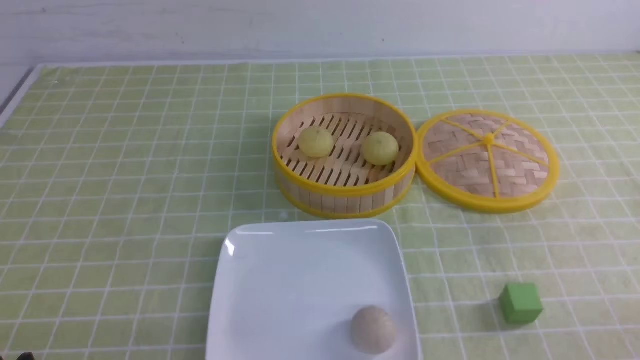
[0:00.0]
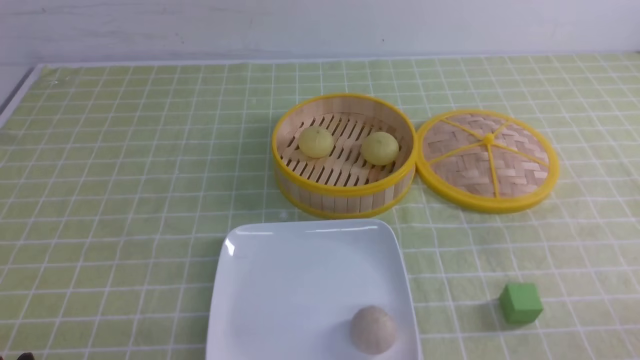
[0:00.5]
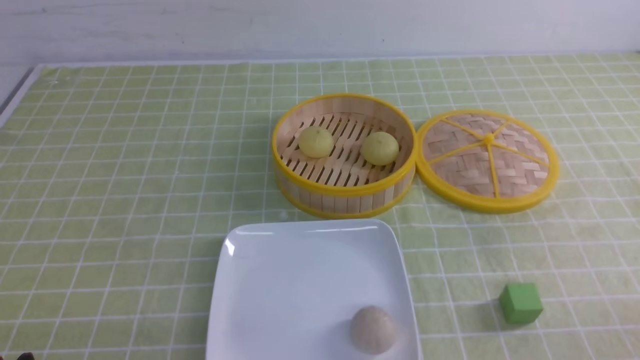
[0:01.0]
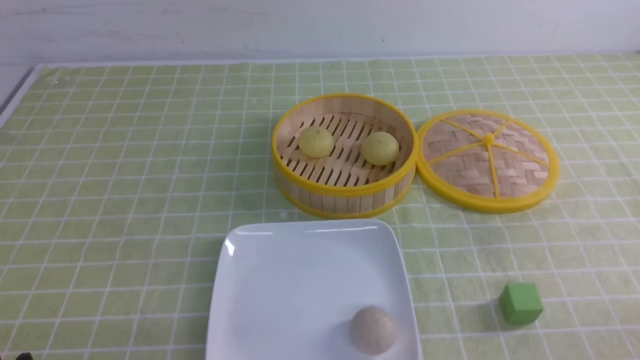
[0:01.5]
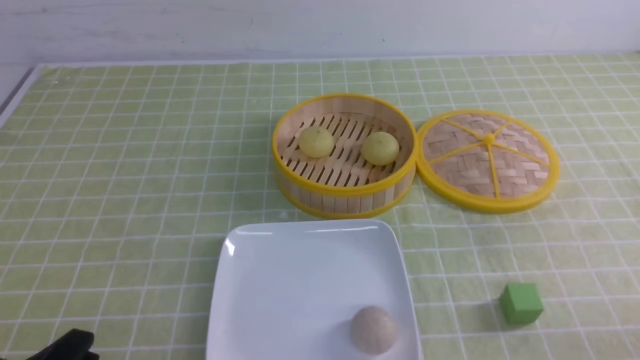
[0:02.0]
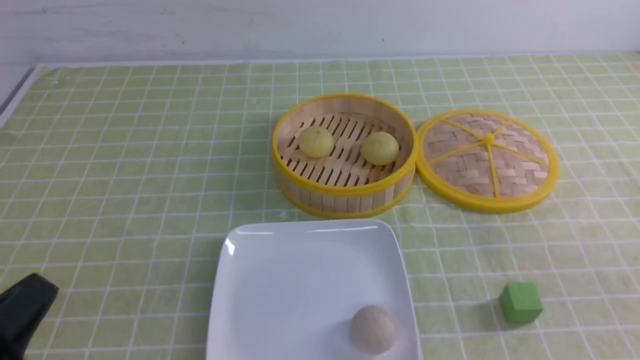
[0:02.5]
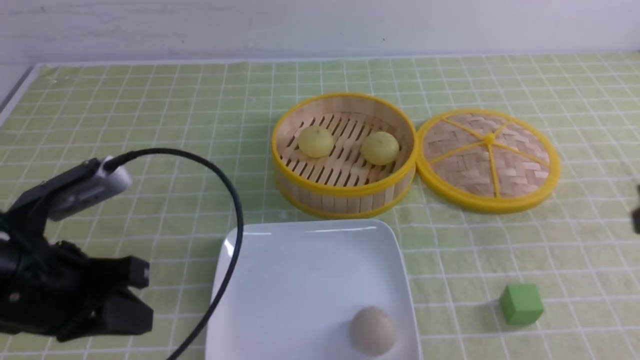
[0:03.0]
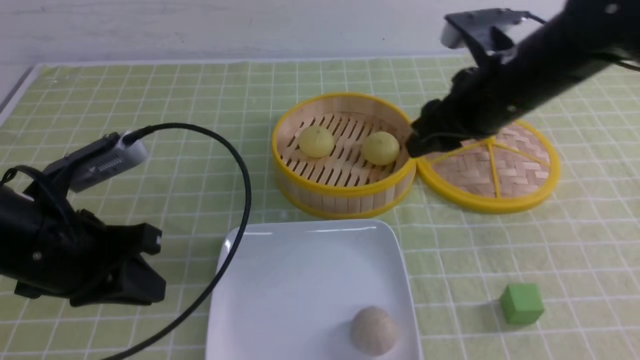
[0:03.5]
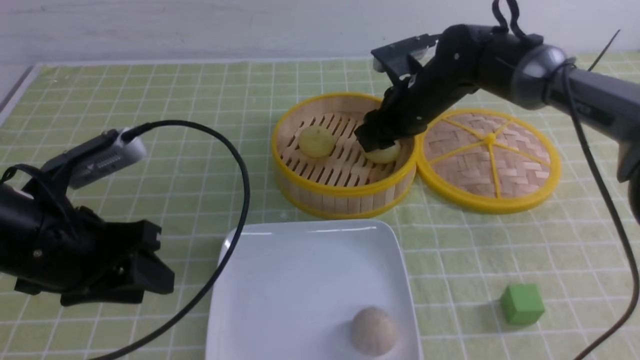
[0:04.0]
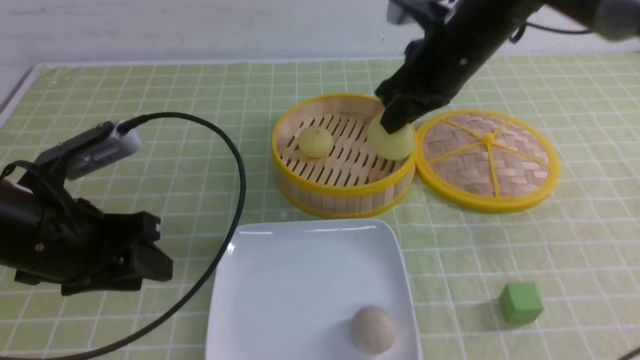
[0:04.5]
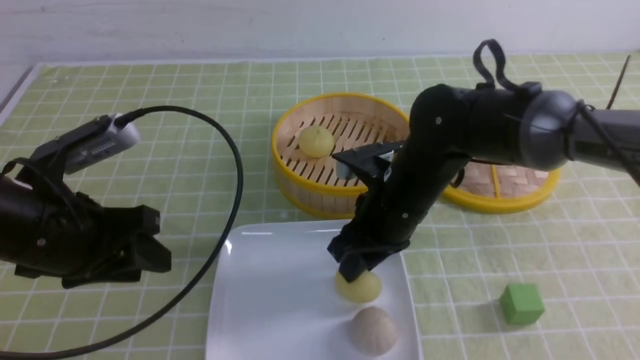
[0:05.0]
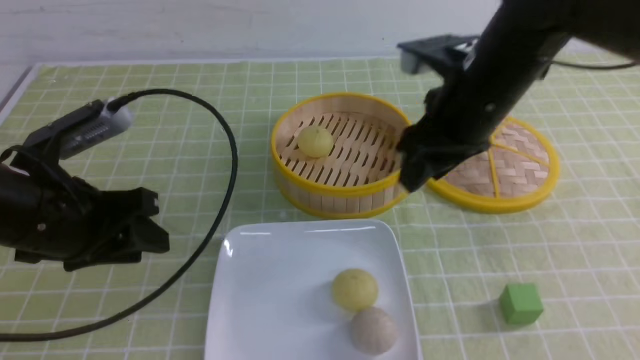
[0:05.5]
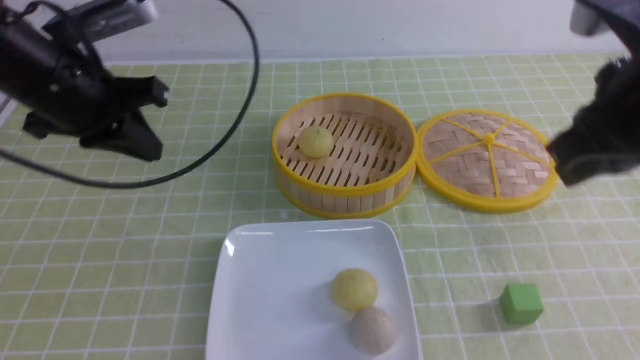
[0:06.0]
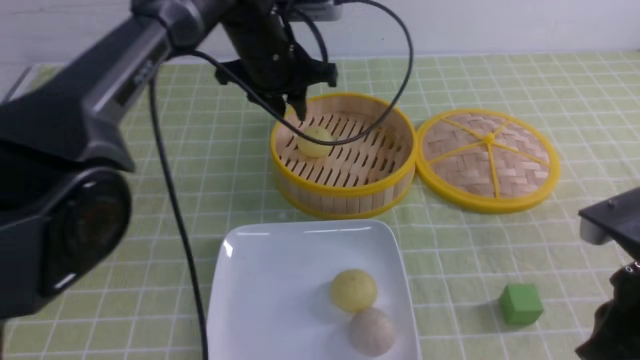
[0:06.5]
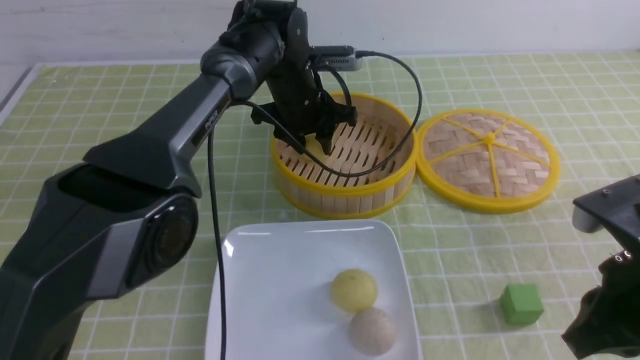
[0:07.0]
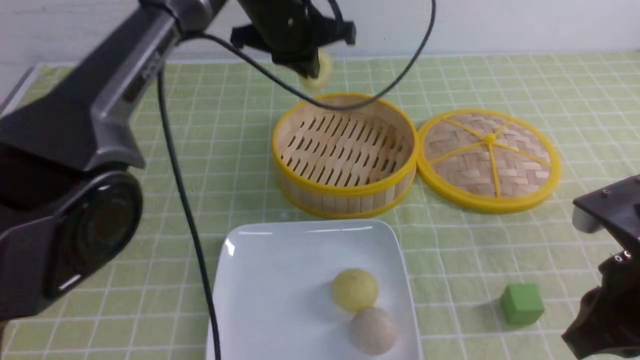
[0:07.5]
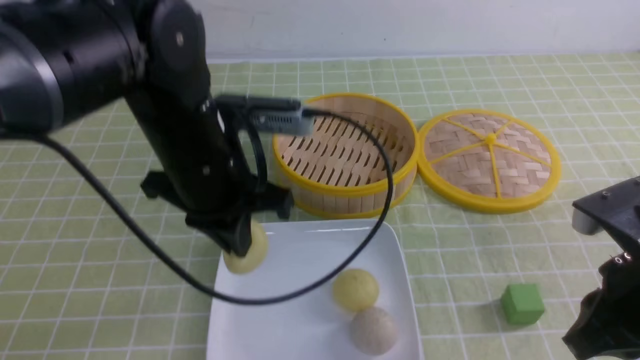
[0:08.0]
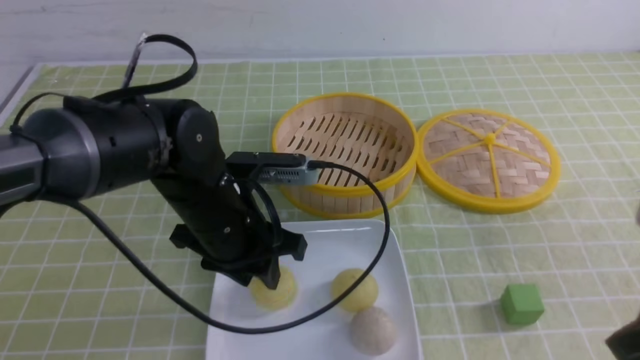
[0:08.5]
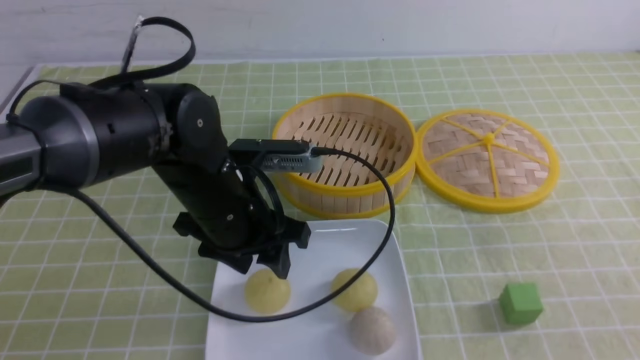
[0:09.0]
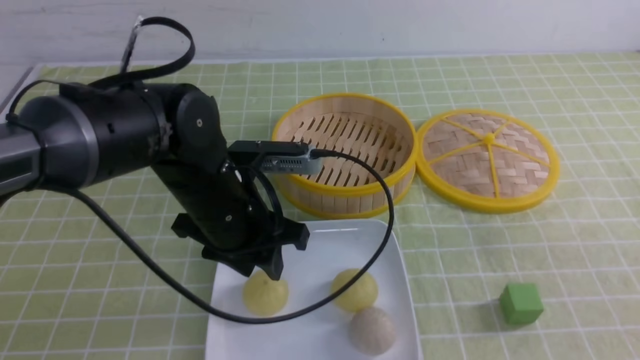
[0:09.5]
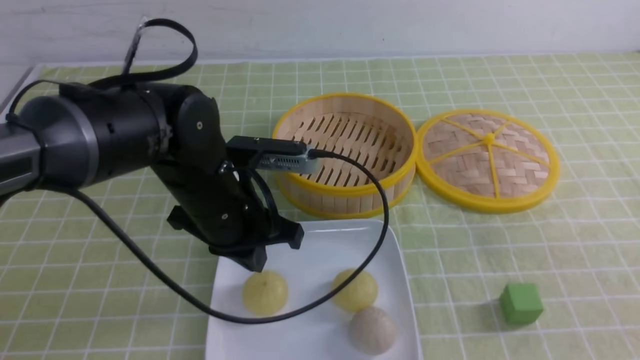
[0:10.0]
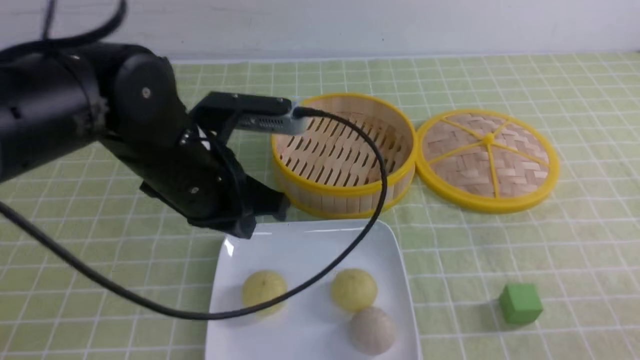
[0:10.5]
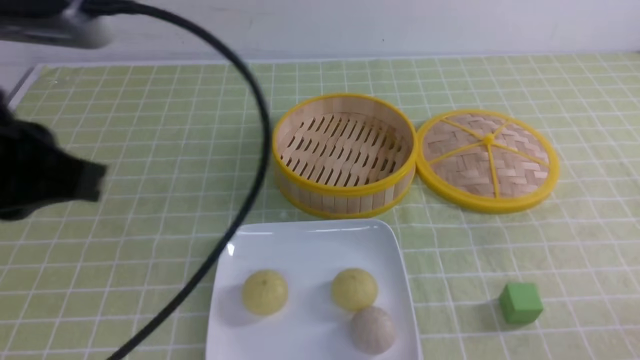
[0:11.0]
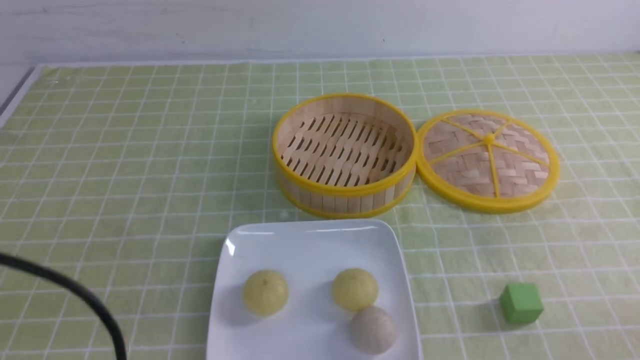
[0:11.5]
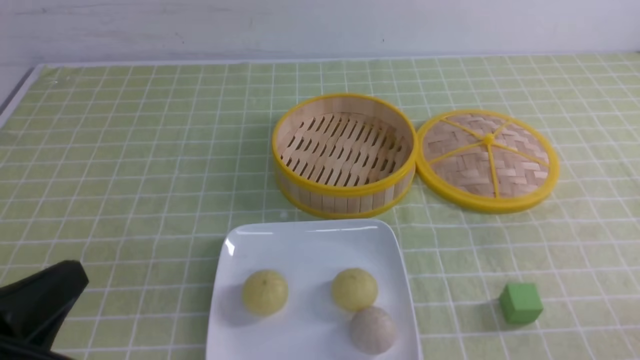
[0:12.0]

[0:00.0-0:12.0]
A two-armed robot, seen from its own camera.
Step, 0:00.0 to 0:04.0: use the right arm to grab the steamed stuffed bun that is closest to it.
Step, 0:04.5 to 0:05.0: use the right arm to put the steamed stuffed bun into the plate.
Step, 0:05.5 to 0:07.0: use the left arm to grab the steamed stuffed bun that is closest to it.
Step, 0:07.5 to 0:08.5: use the left arm to put the steamed stuffed bun into the plate.
0:02.0 to 0:04.0: The left gripper goes some 20 cm forward and upward, and closes, then opens again. Meanwhile the right gripper is displaced forward and to the left by about 50 cm, and closes, then reopens.
0:04.0 to 0:06.0: The left gripper is displaced forward and upward by roughly 15 cm, and closes its fingers. Meanwhile the right gripper goes about 30 cm backward, upward and to the right, and closes.
0:06.0 to 0:08.0: The right gripper moves downward and backward, some 10 cm; the left gripper is displaced to the right and downward by some 10 cm, moves roughly 15 cm forward and comes back, and opens, then closes once more.
0:08.0 to 0:10.0: The right gripper travels backward and to the right by roughly 15 cm; the left gripper moves downward, about 5 cm, and opens and closes again.
0:10.0 to 0:12.0: The right gripper shifts some 10 cm downward, while the left gripper moves backward and to the left, about 25 cm.

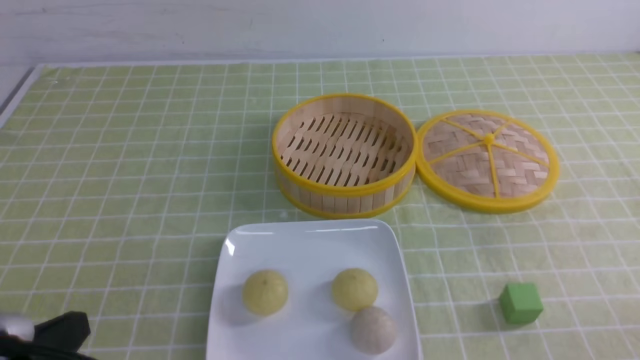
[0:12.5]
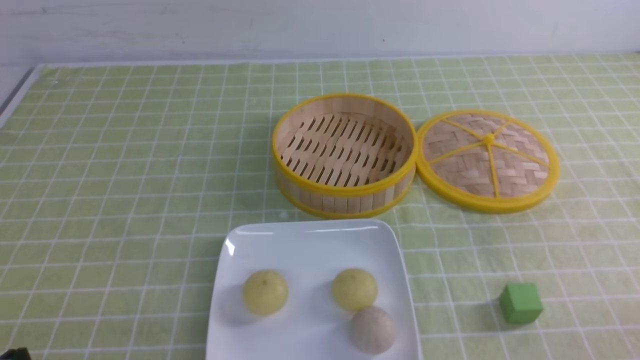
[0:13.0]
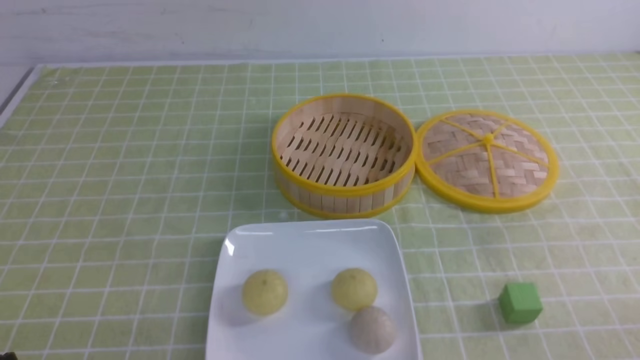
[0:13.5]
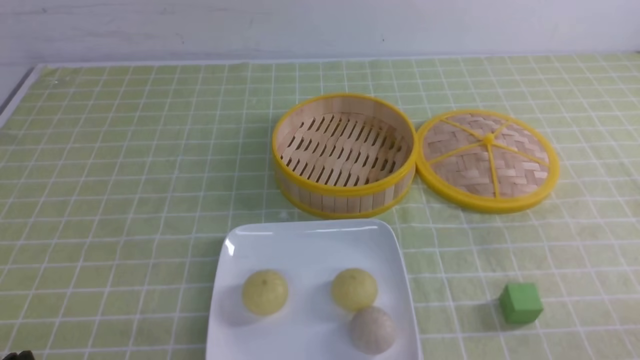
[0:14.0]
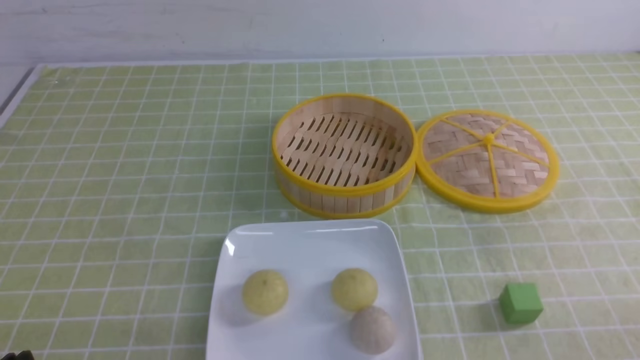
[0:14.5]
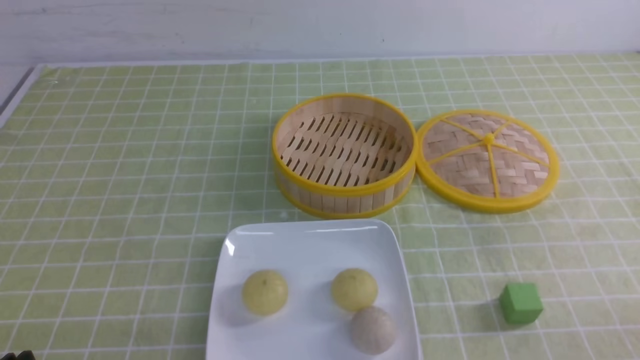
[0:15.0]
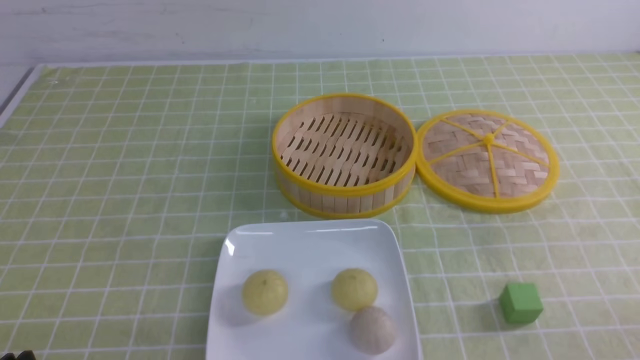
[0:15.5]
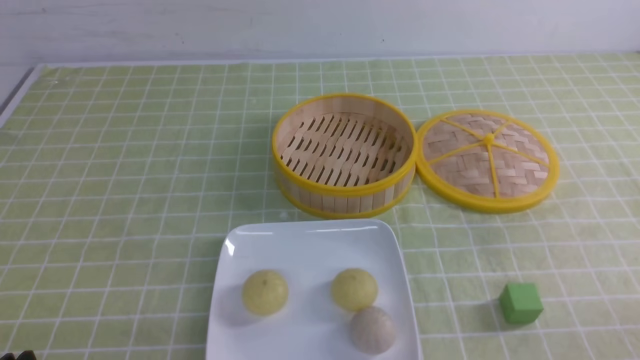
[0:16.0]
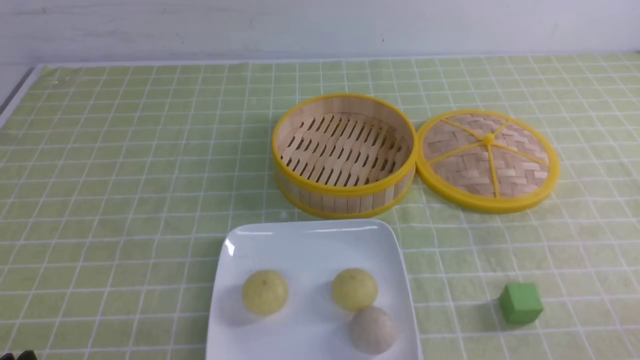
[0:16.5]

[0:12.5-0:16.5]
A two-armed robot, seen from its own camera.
0:12.5 to 0:14.5: The left gripper goes approximately 5 cm downward.
0:14.5 to 0:16.5: Both grippers stay about where they are.

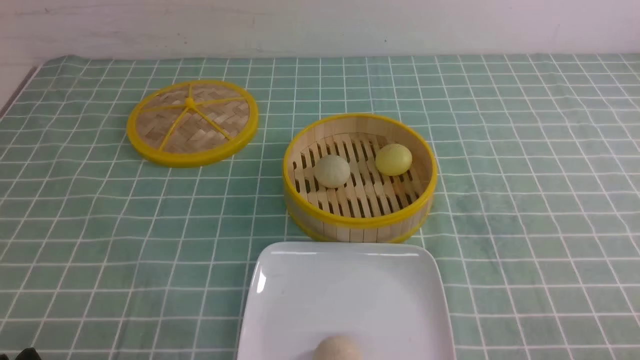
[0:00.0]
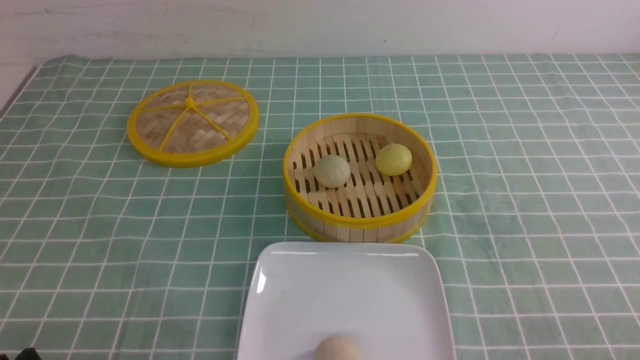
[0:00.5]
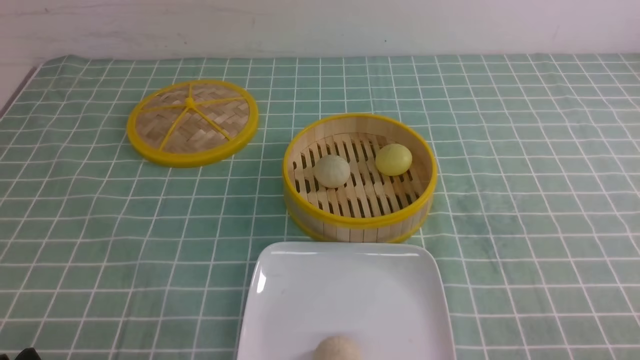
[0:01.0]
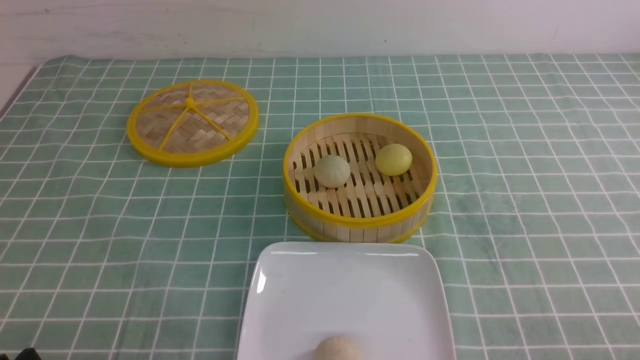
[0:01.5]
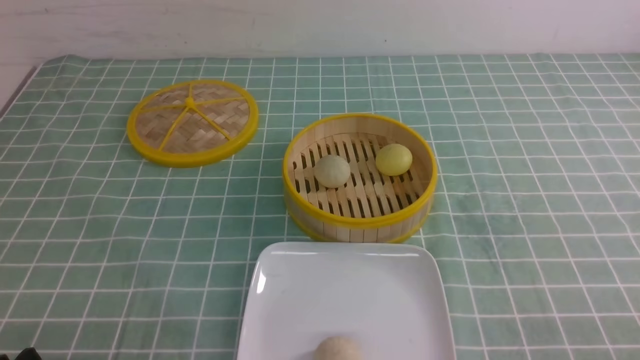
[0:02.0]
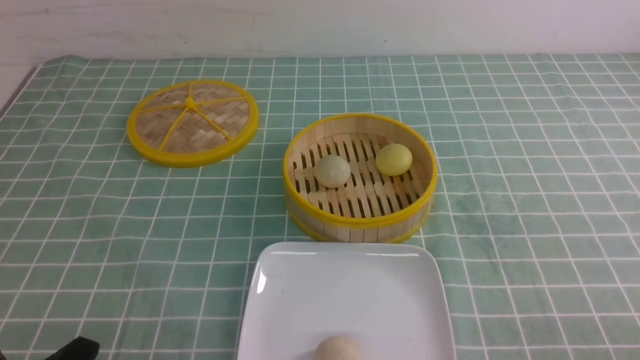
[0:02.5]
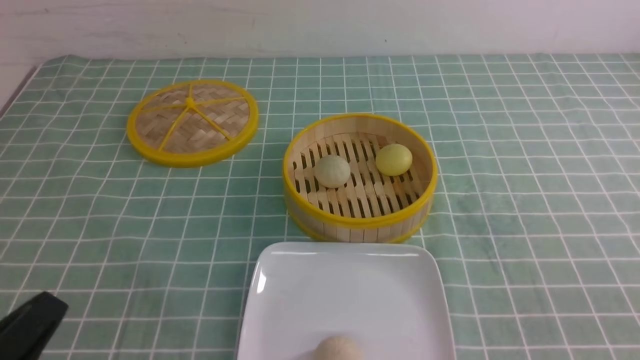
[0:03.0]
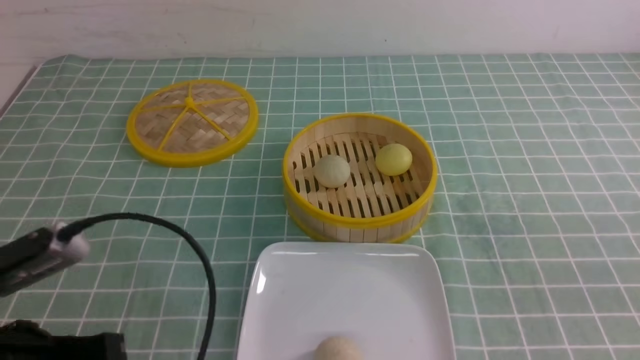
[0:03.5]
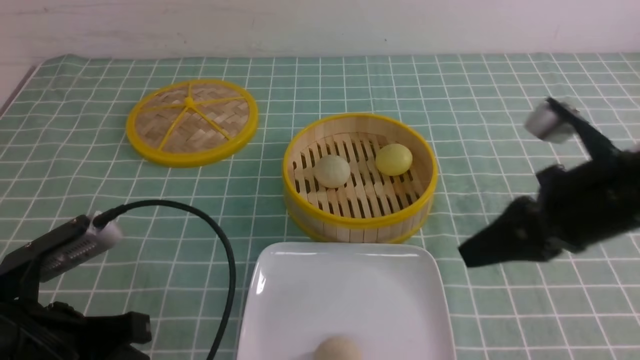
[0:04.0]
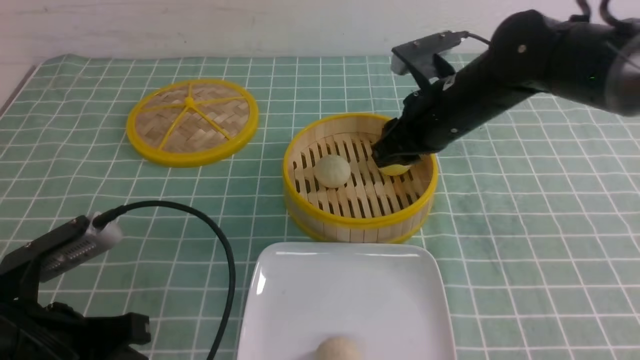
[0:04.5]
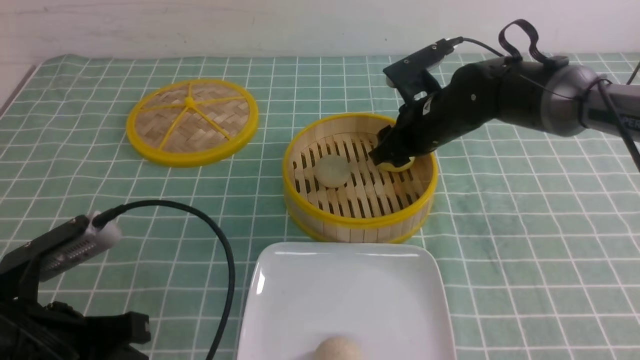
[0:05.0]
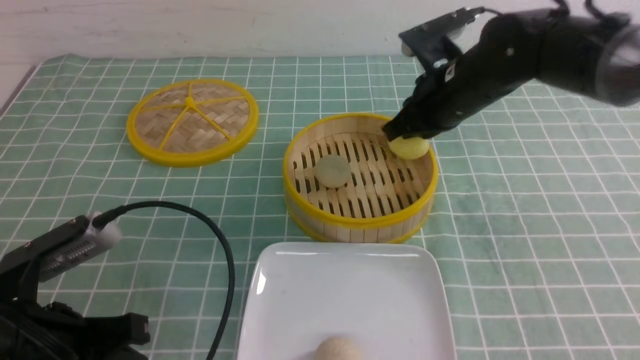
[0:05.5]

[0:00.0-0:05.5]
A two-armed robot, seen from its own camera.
Step, 0:00.0 to 0:05.0: use the right arm to grab the steamed stuffed bun that is closest to it.
0:02.0 to 0:03.5: The left gripper heads upward and forward, covering about 10 cm, and closes its fingers.
0:03.5 to 0:05.5: The right gripper shifts roughly 30 cm forward and to the left, and opens, then closes once more.
